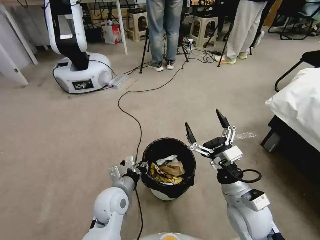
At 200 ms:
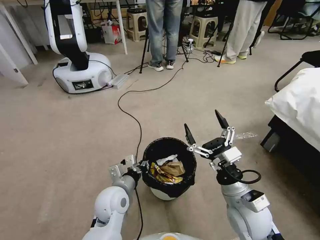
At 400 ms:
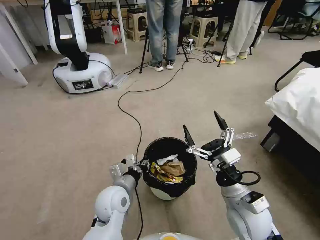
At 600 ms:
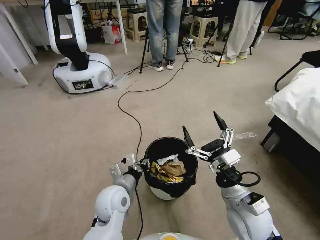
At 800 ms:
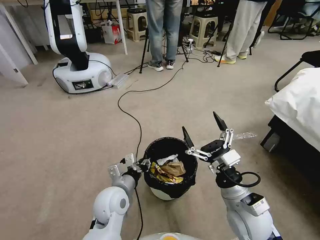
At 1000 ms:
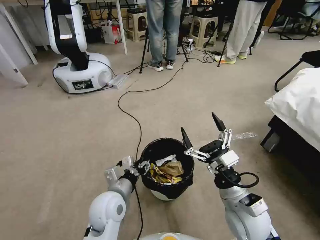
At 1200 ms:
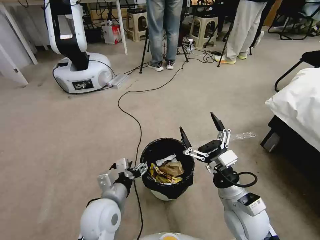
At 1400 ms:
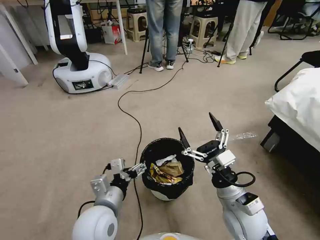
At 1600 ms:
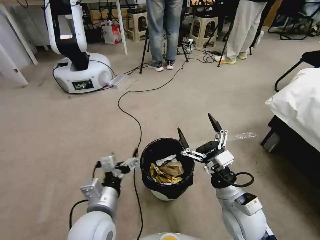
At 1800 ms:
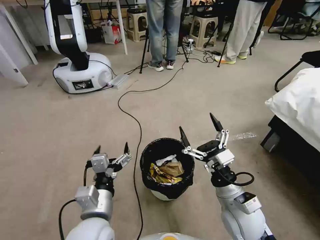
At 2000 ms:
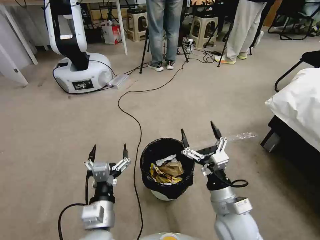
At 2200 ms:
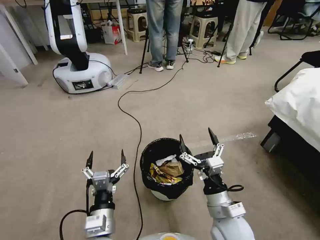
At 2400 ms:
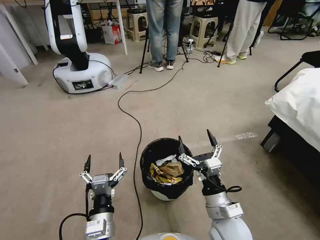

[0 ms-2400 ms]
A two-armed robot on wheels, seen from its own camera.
Task of the whole recording: Pick up the trash bin, then pick up the garbage from the floor and place it into the trash bin.
0 ms to 1200 ms: The left gripper shifts by roughly 5 cm, and opens up.
1200 ms to 2400 ms: The left gripper shifts roughly 10 cm backward. Meanwhile the right gripper ends up about 5 cm from where it was.

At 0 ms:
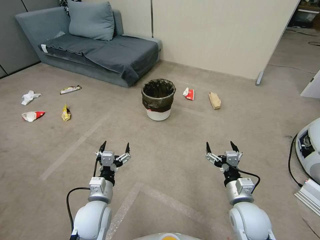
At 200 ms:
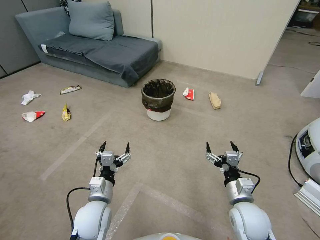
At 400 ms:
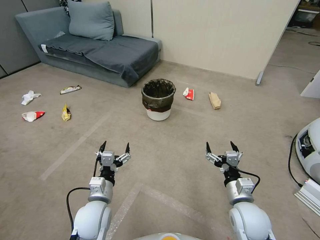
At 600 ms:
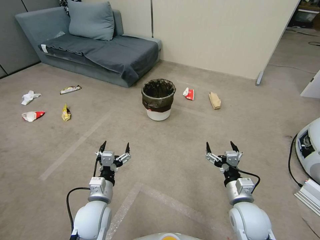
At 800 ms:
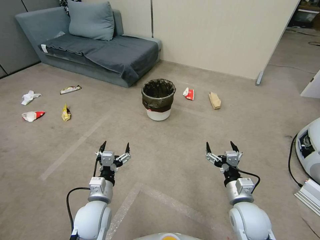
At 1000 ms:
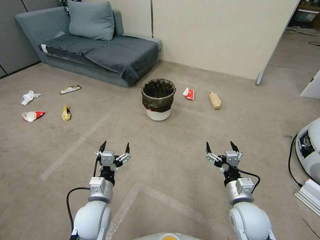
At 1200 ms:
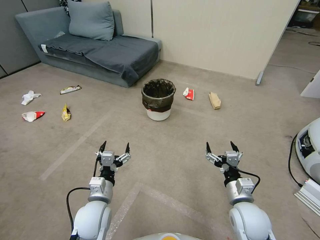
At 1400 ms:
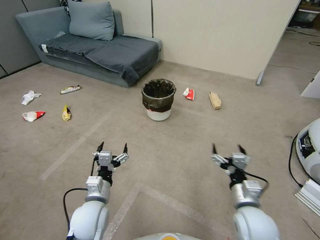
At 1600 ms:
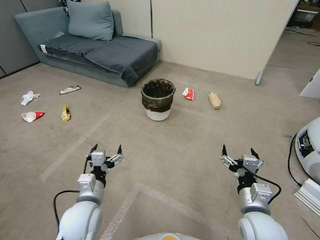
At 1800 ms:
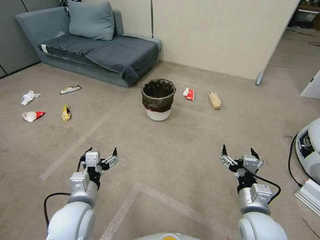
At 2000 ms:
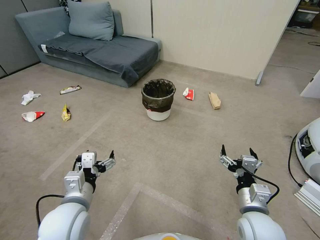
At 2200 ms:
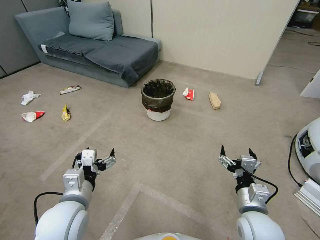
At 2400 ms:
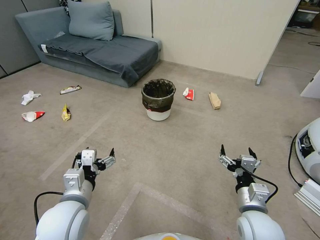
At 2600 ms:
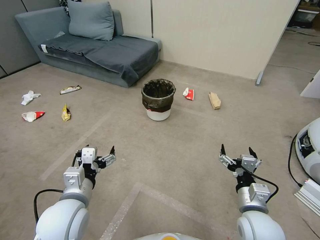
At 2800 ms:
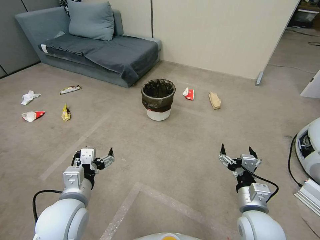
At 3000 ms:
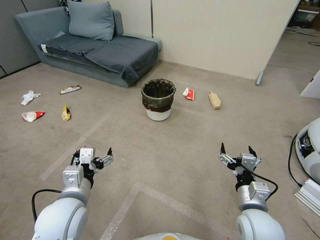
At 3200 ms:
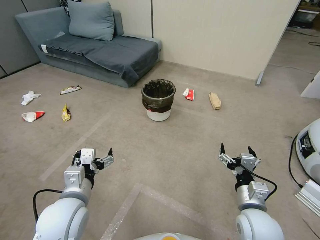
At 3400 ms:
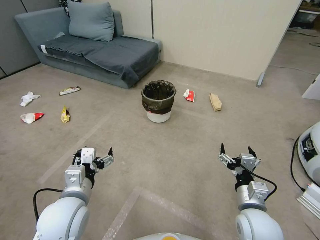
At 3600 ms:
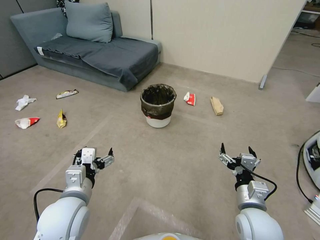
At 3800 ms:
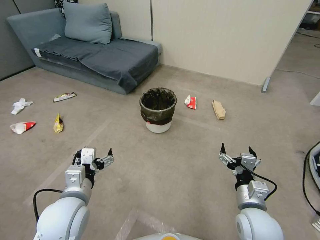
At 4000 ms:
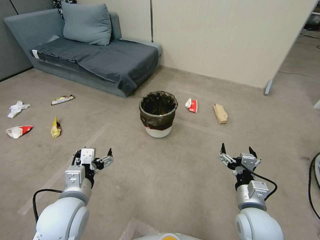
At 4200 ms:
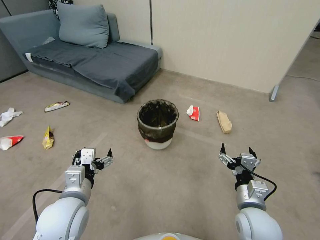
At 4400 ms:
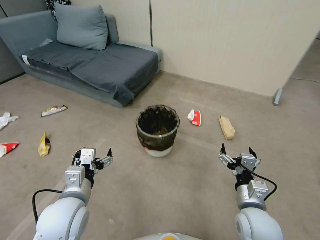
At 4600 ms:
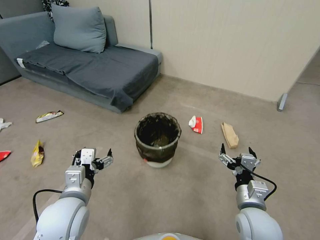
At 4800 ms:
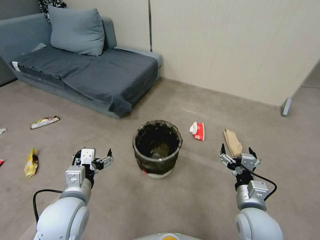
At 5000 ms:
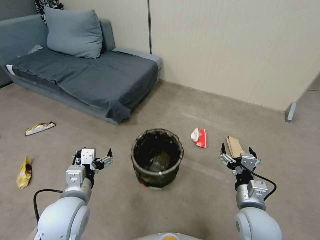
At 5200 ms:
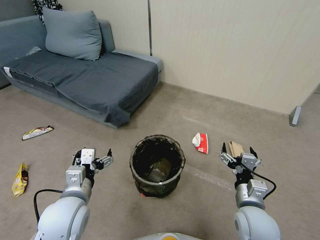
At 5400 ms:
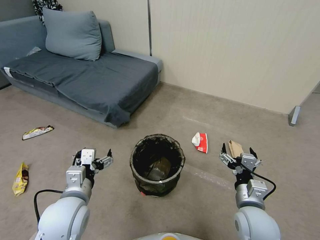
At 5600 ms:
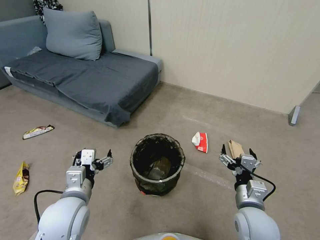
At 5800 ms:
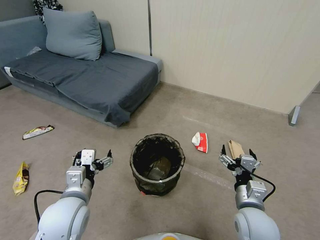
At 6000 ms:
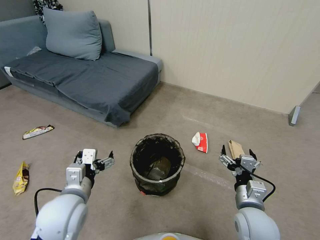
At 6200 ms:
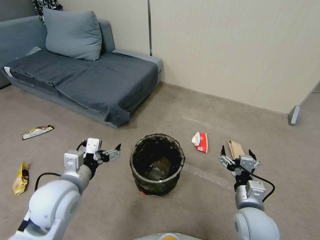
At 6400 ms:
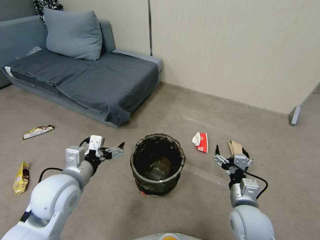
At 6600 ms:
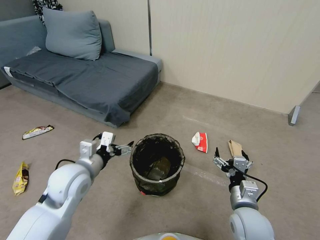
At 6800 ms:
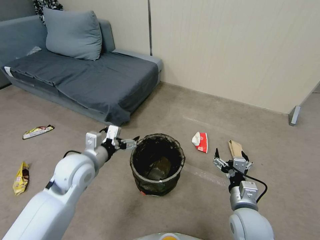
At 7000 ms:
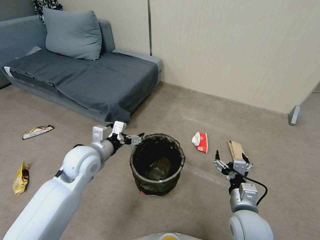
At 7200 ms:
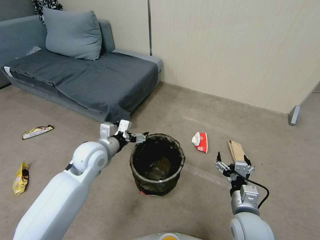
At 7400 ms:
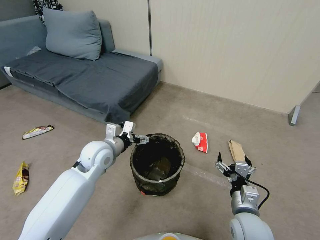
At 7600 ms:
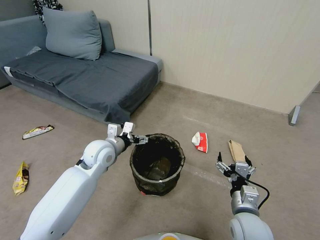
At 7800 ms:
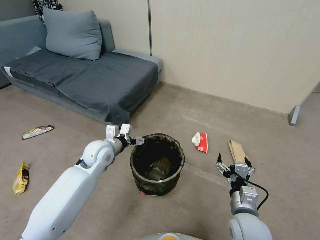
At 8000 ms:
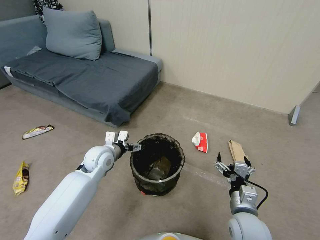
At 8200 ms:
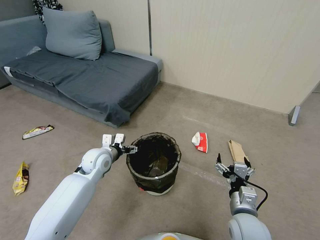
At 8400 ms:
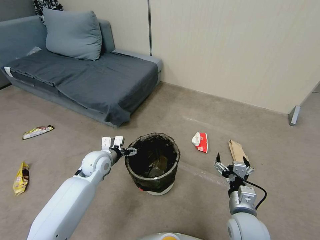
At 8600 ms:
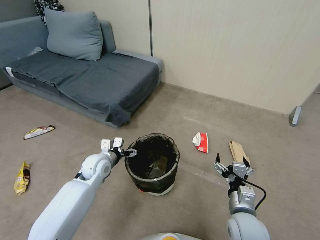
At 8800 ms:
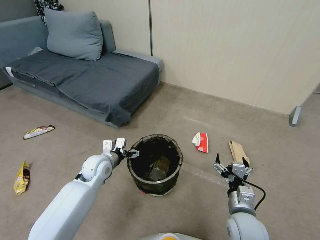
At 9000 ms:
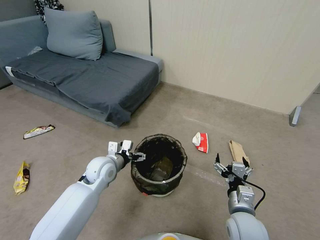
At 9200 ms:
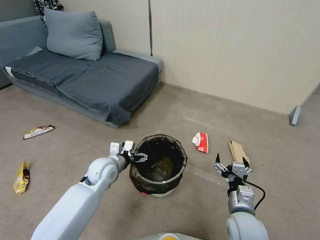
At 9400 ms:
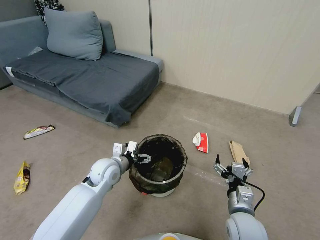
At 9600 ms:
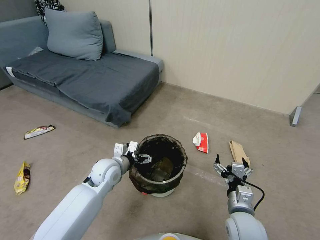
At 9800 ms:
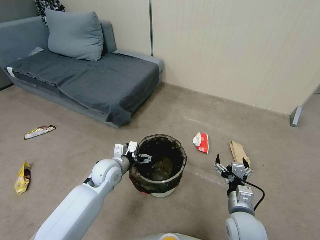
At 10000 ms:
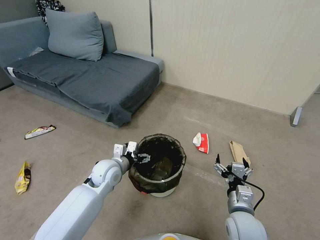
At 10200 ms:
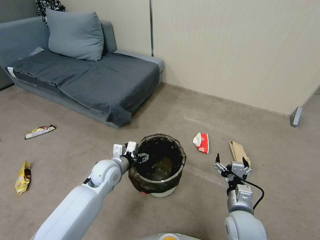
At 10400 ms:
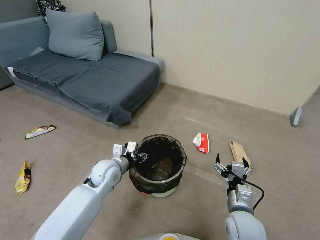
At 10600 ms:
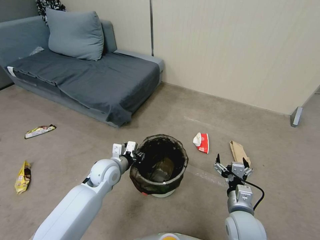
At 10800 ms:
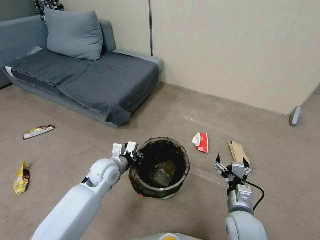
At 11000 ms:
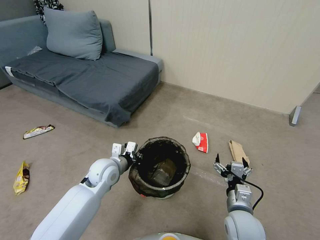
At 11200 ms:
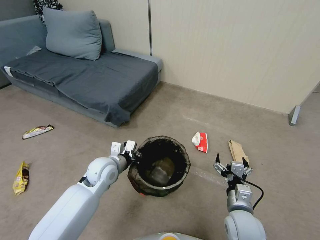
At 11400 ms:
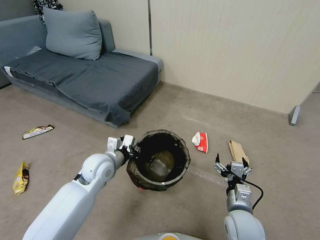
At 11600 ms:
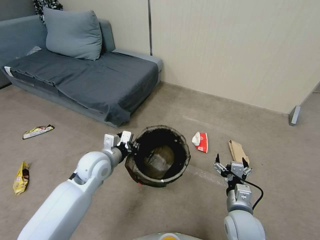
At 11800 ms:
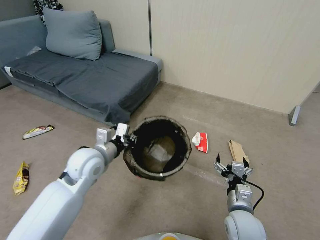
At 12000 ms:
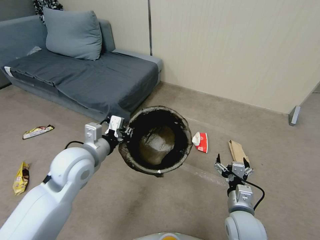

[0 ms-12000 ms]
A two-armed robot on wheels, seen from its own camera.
Task of the whole recording: Pick up the trash bin, then pick up the garbage from the floor and place it into the trash bin.
1600 ms to 3000 ms: The left gripper shifts some 10 cm upward.
6000 ms to 7600 ms: The left gripper is displaced forward by roughly 20 cm.
7600 ms to 9000 ms: The left gripper is displaced downward by approximately 5 cm.
9000 ms to 10400 ms: The left gripper closes up.
10400 ms to 12000 ms: The left gripper goes about 15 cm upward, and closes up.

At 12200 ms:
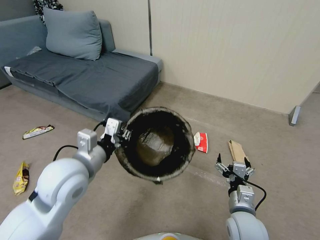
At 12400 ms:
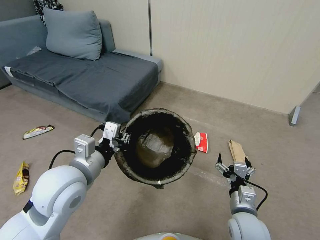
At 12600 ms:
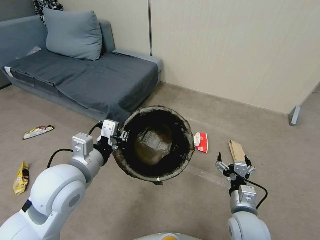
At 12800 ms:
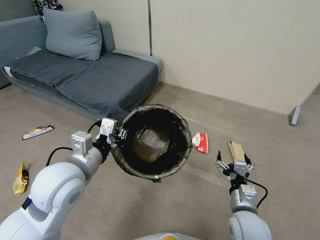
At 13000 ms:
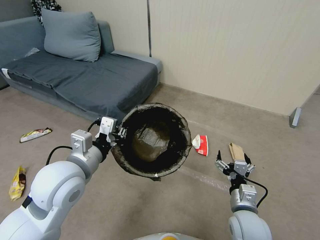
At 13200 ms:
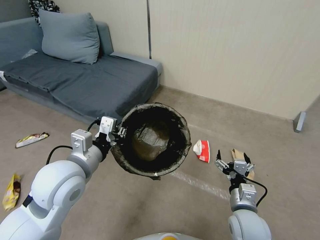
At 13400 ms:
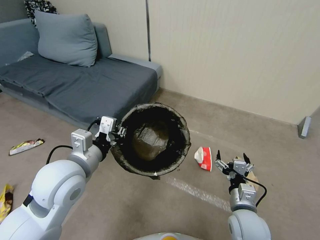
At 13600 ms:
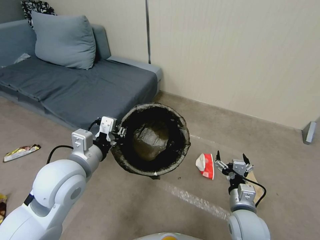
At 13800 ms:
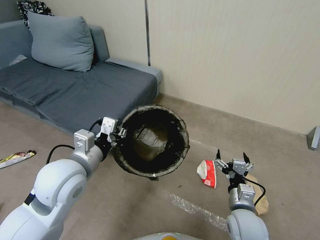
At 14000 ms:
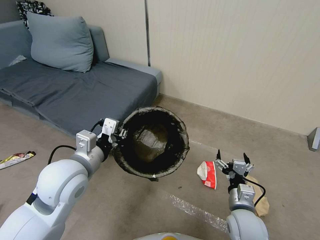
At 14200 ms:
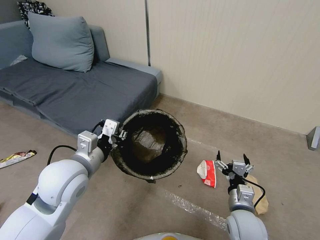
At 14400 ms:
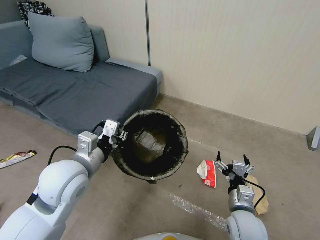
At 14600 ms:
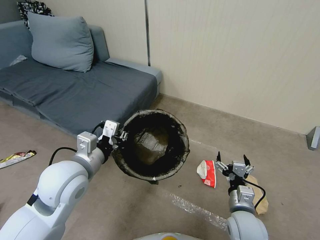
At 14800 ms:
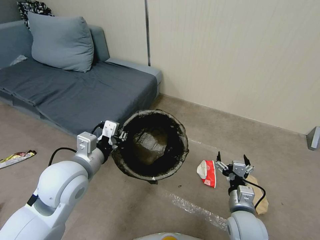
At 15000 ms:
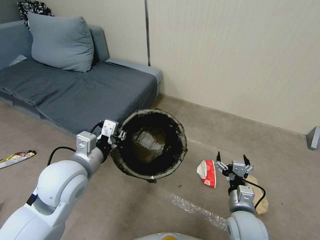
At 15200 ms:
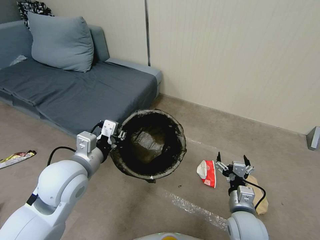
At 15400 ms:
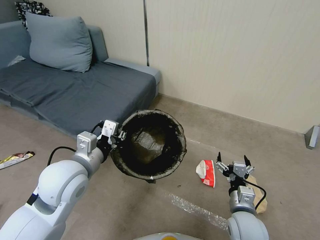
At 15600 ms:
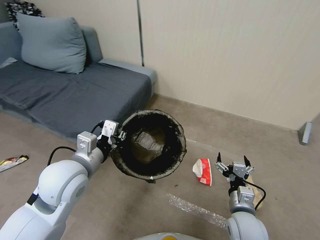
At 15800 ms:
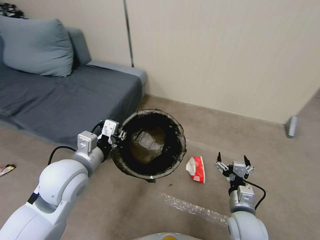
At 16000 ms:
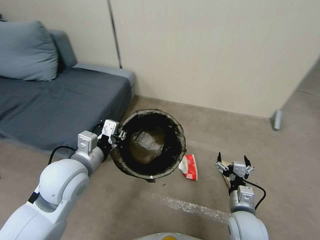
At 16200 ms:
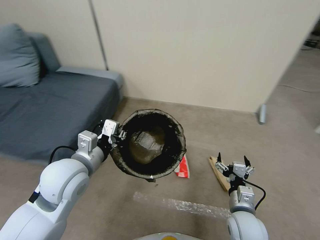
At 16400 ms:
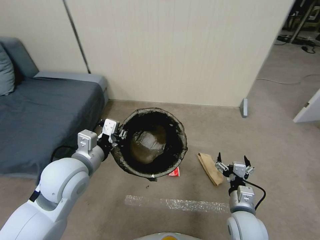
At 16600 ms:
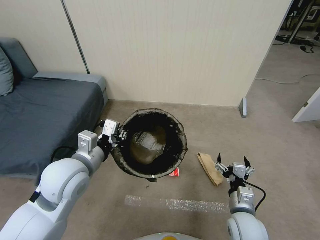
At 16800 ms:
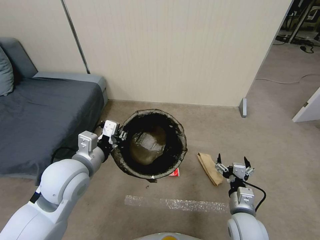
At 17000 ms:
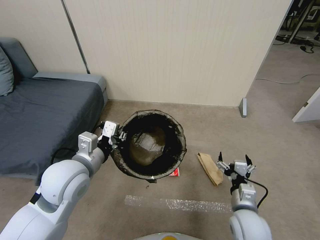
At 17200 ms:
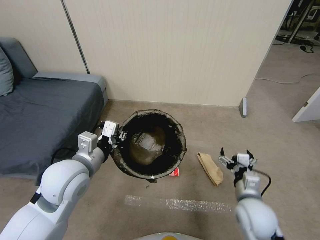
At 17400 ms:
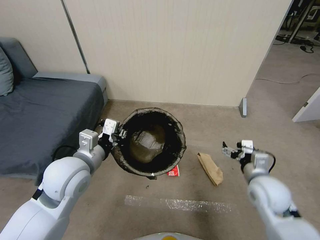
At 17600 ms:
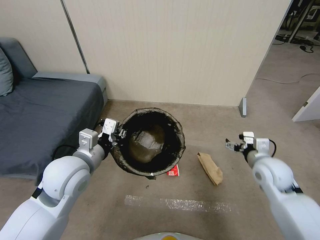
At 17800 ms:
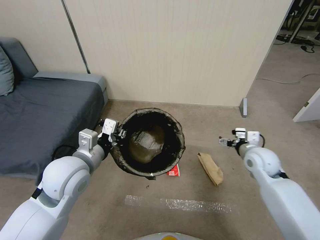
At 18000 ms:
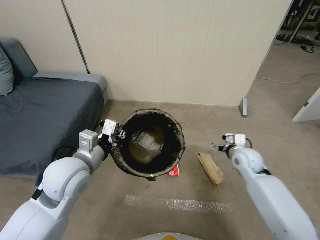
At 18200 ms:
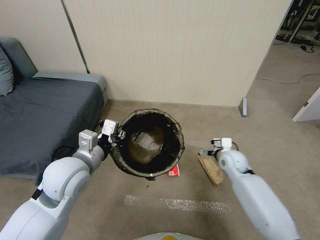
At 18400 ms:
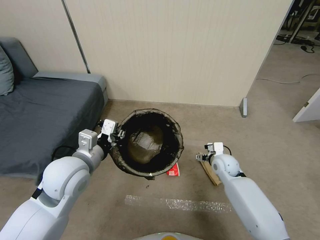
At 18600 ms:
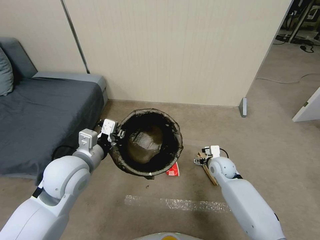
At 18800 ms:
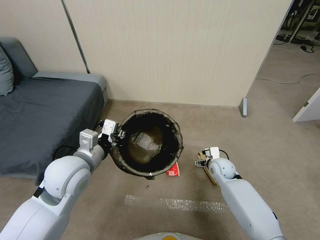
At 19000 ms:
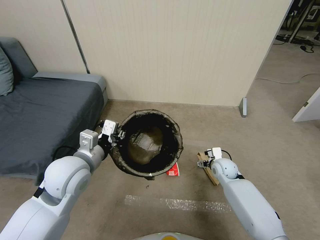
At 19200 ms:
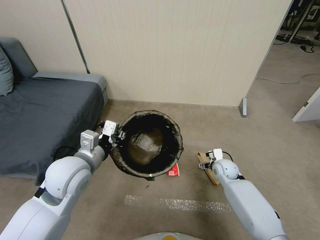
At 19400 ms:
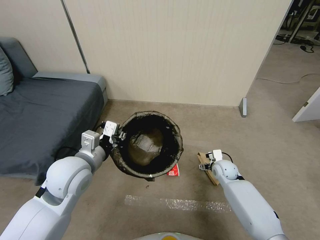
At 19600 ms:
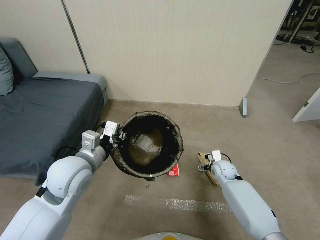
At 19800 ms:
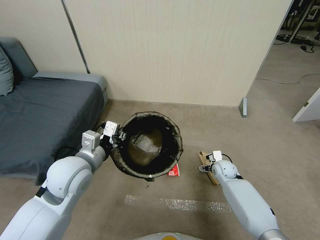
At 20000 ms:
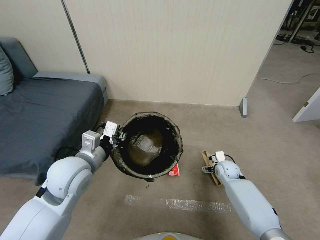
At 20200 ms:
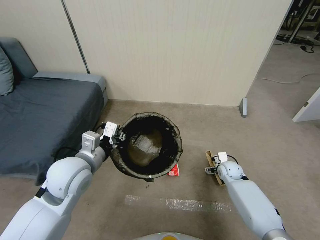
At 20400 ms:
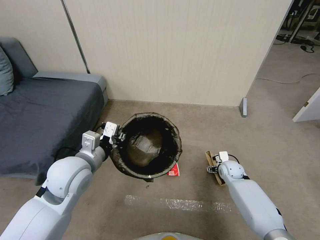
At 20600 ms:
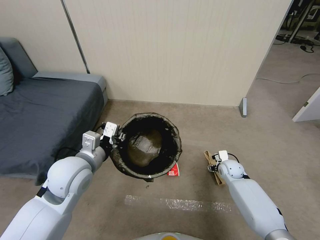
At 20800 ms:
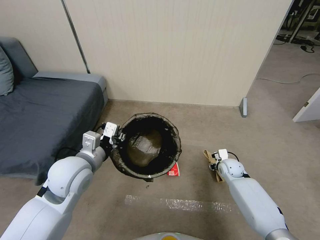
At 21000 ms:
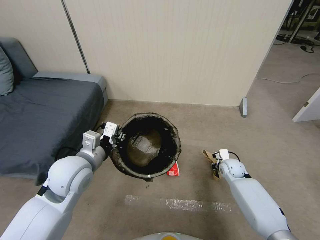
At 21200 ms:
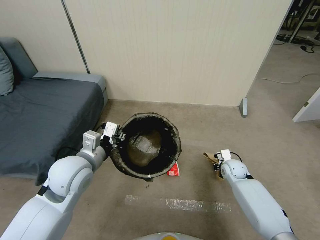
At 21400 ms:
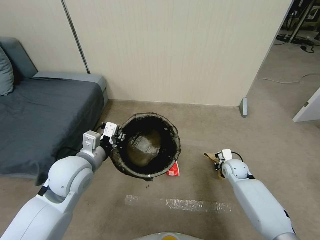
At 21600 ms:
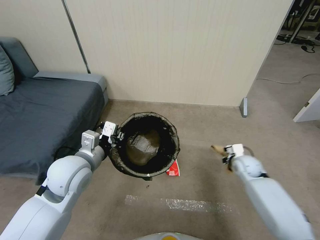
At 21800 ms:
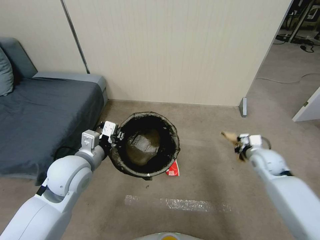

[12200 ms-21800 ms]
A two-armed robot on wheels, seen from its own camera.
Task of the whole recording: Pick up the trash bin, then pick up the garbage from the floor and place it into the trash bin.
13800 ms to 15400 ms: Both grippers stay about where they are.
17000 ms to 18600 ms: The right gripper travels forward by about 20 cm.
18600 ms to 20200 ms: The right gripper travels downward and to the right by about 10 cm.
20200 ms to 21800 ms: The right gripper shifts about 15 cm upward and to the right, and closes its fingers.